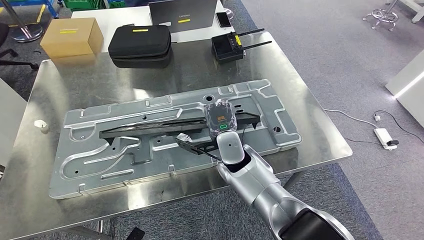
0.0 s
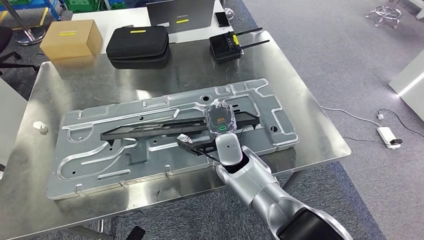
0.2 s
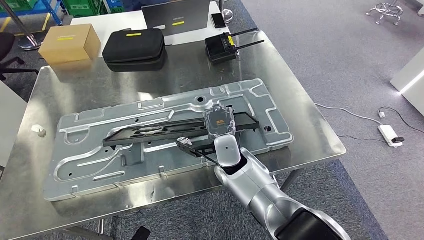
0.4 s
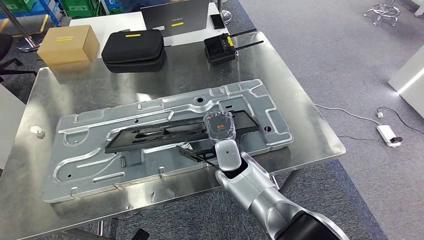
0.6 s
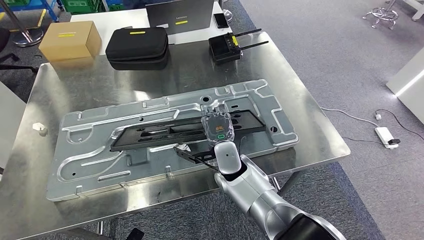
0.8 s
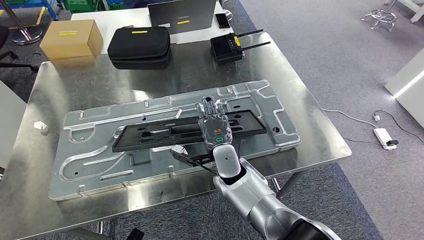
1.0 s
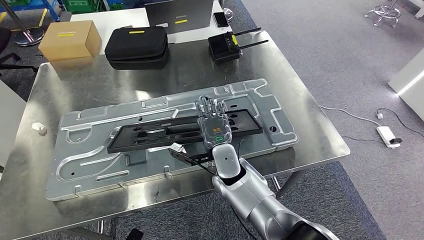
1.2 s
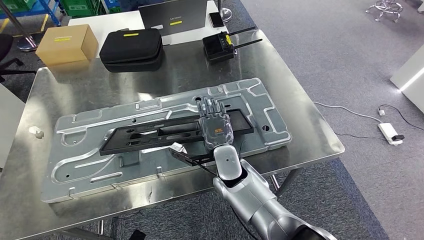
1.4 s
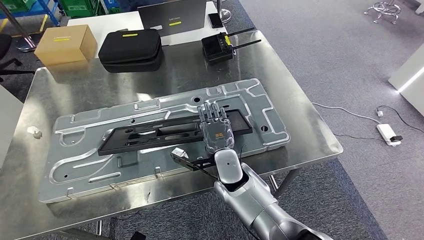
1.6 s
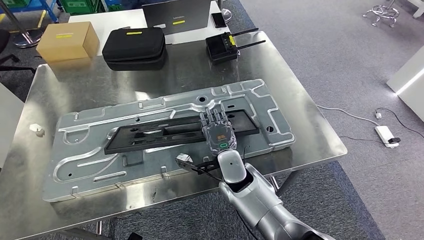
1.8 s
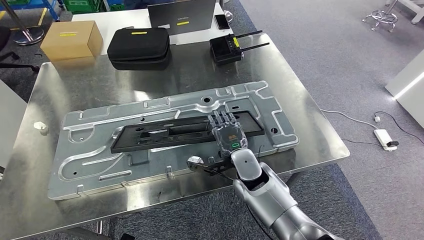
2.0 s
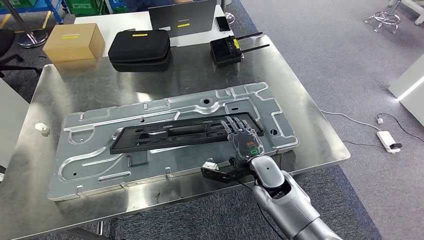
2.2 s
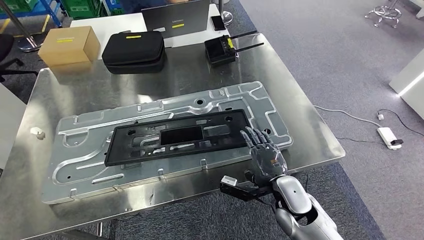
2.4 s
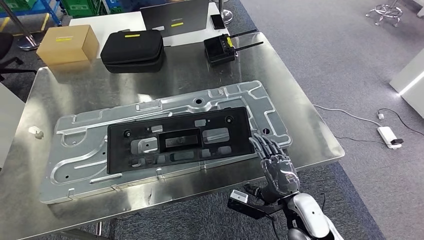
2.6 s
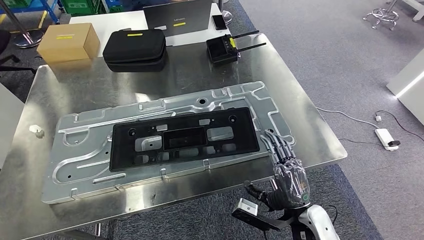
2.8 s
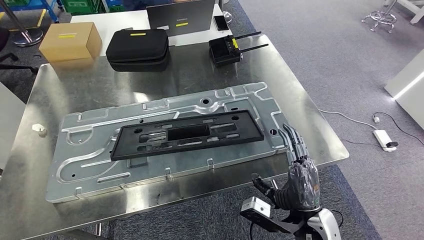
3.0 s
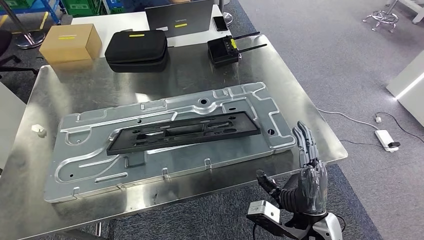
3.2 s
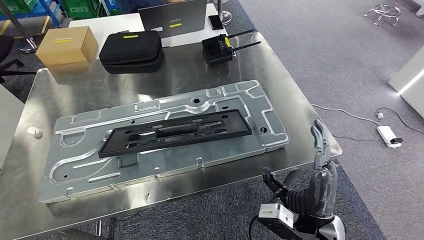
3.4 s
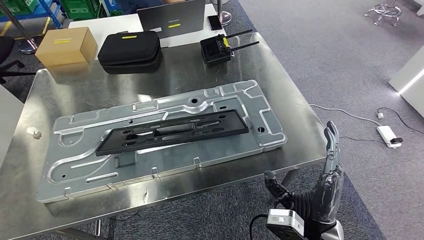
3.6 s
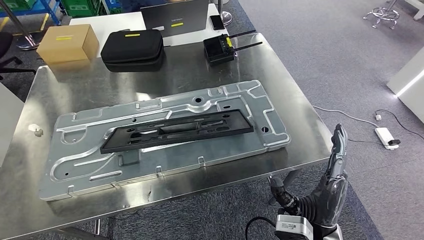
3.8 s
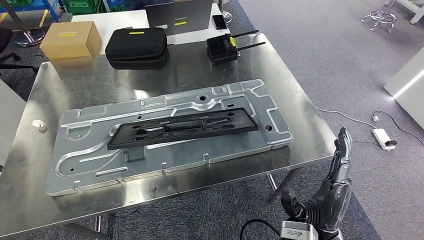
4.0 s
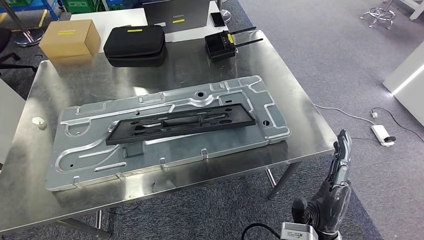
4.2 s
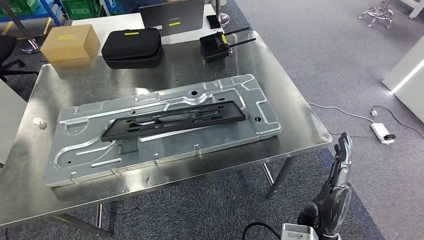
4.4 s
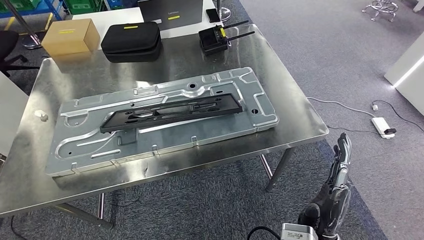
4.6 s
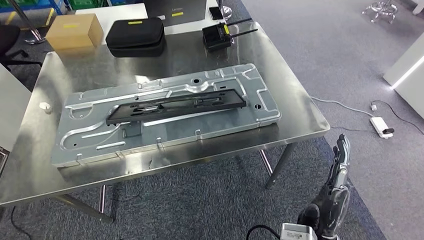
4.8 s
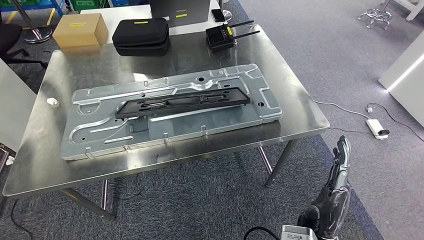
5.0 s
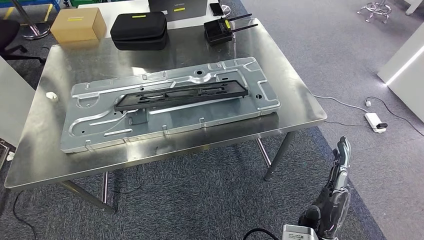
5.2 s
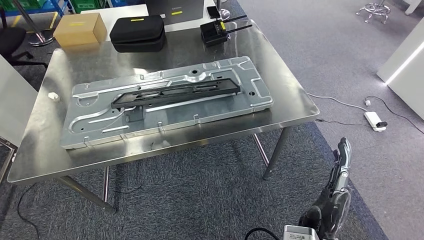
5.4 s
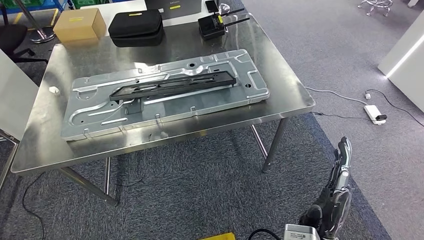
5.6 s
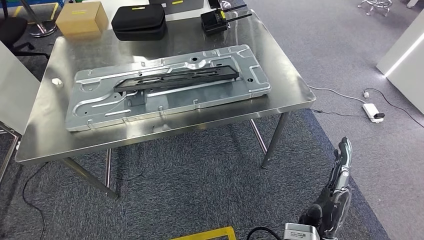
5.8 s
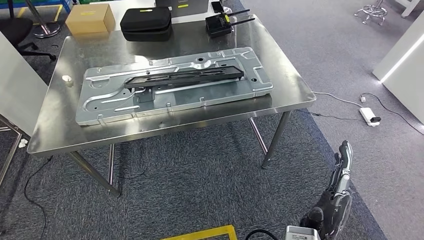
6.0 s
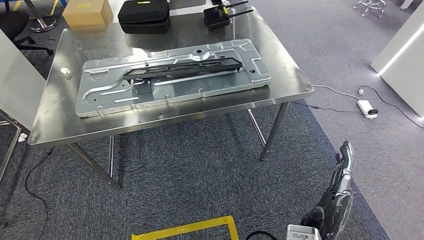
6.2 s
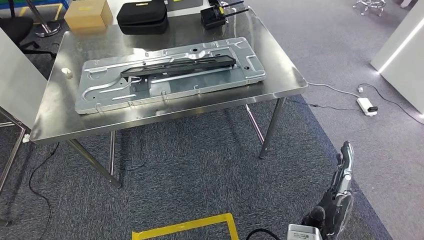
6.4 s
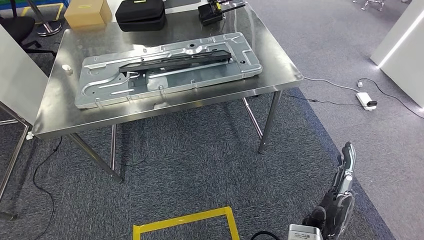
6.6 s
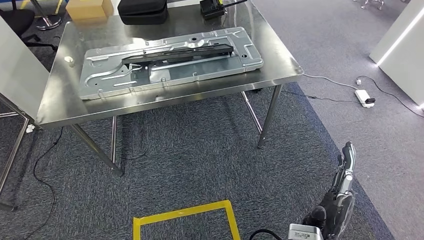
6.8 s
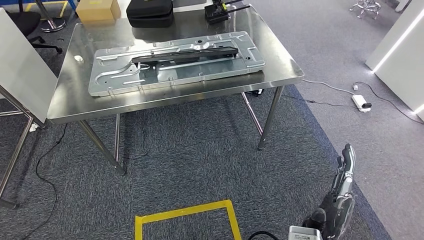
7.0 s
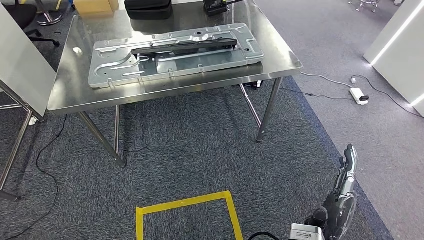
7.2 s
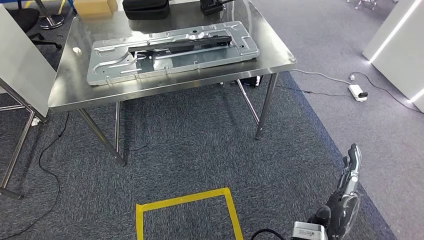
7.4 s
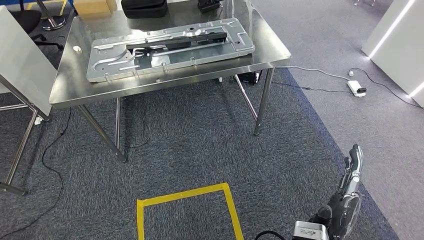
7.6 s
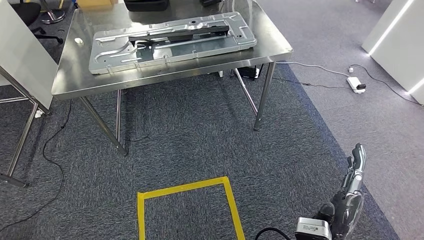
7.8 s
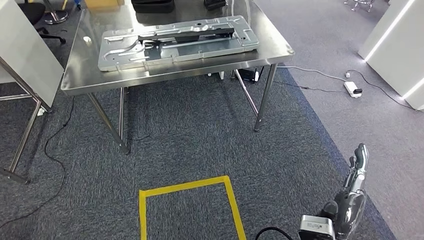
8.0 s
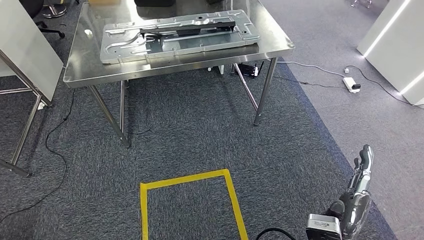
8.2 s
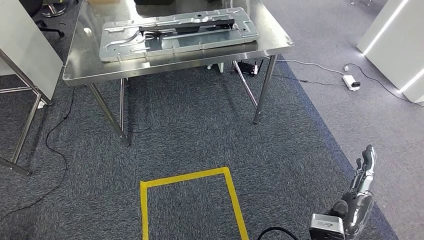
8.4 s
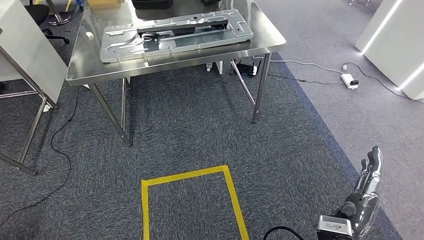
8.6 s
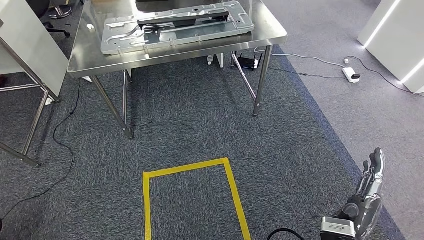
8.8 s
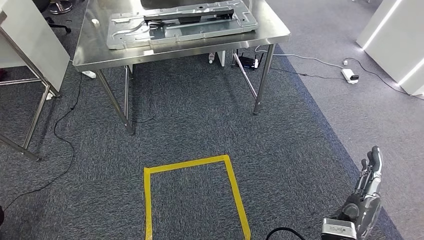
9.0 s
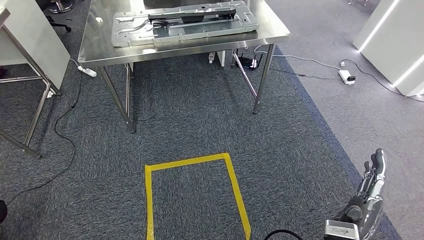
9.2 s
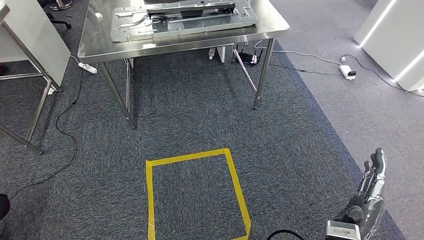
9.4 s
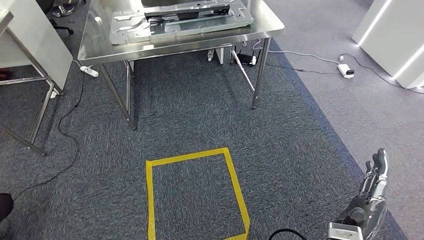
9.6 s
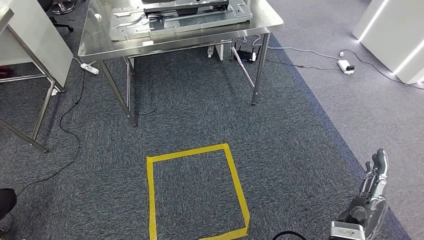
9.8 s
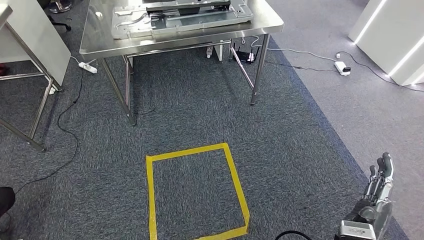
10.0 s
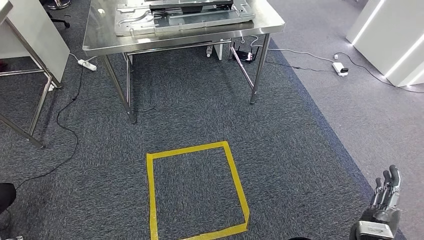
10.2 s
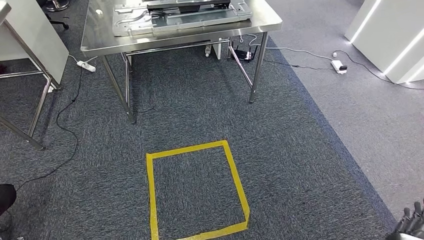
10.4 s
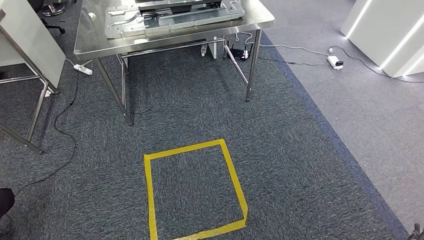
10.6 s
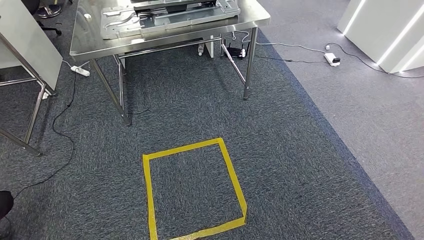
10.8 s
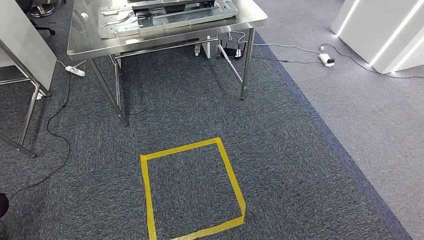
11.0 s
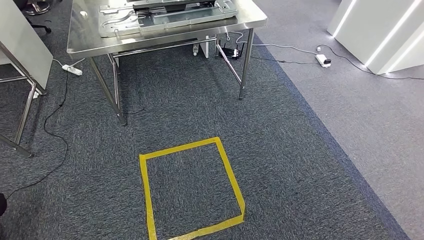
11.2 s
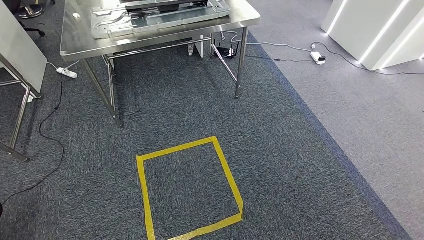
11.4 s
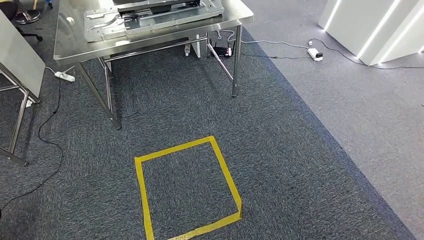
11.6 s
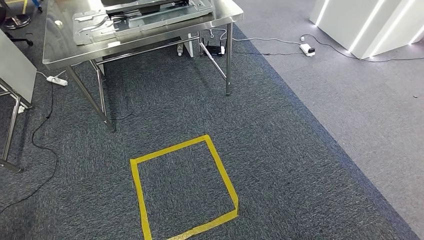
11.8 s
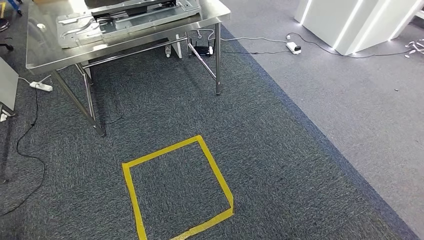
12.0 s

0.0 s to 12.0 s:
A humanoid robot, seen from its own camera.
Step, 0.0 to 3.4 s: Insert the large parts into the corresponding slots on the workbench.

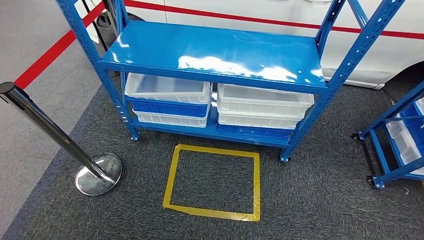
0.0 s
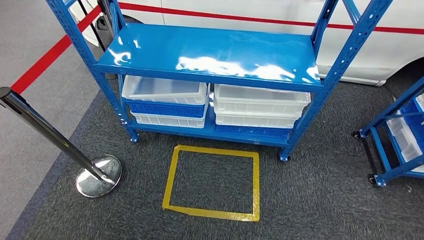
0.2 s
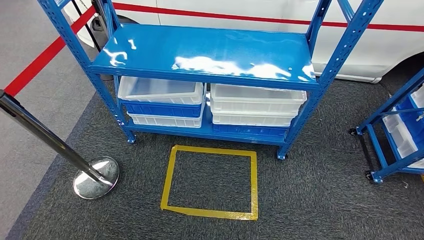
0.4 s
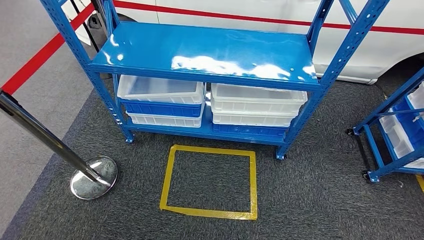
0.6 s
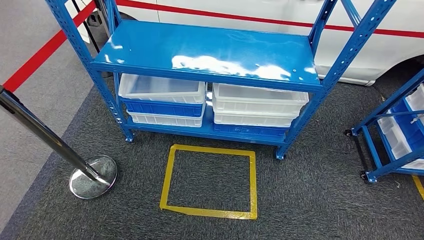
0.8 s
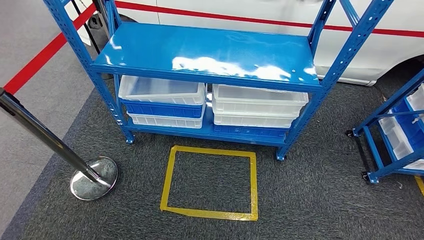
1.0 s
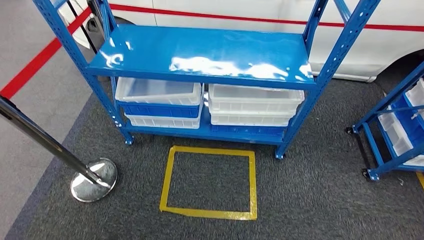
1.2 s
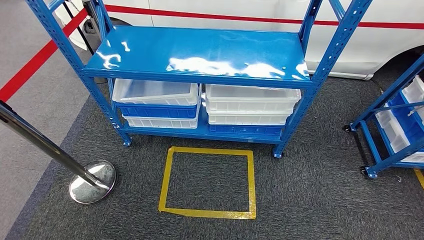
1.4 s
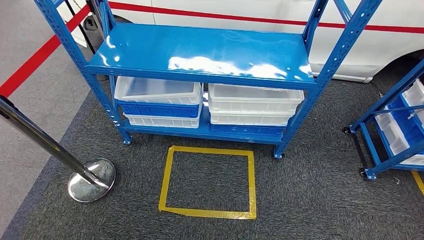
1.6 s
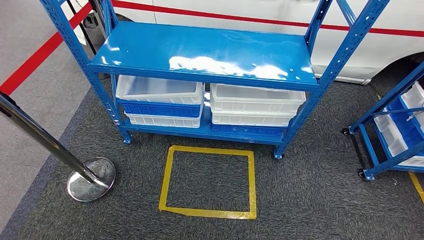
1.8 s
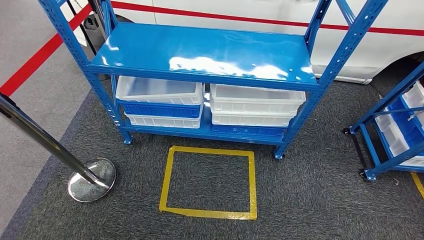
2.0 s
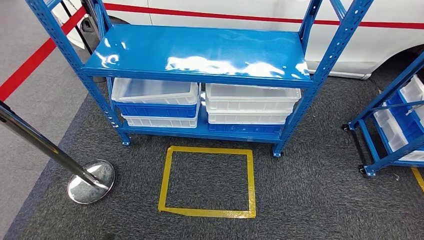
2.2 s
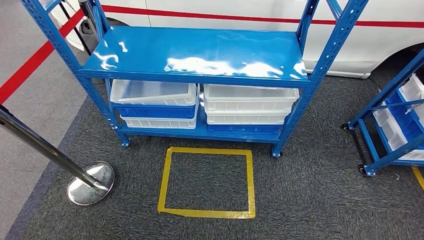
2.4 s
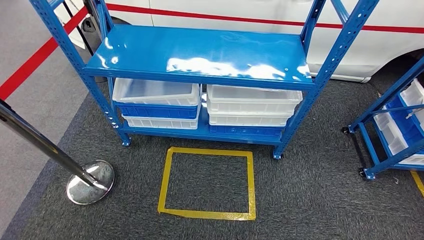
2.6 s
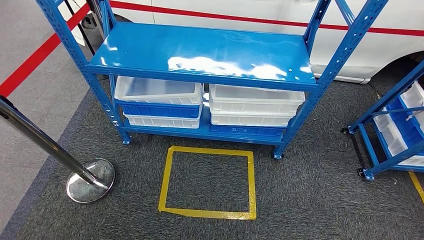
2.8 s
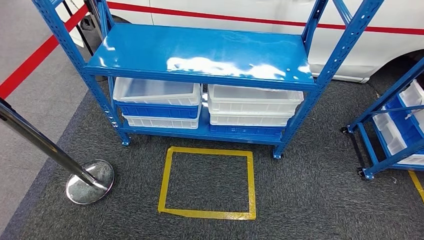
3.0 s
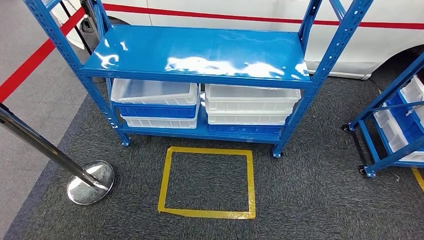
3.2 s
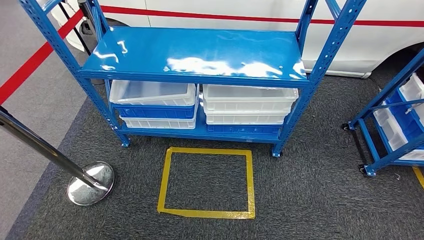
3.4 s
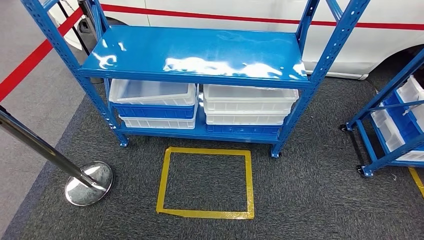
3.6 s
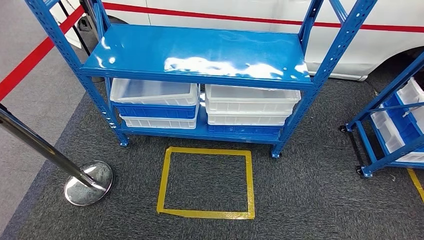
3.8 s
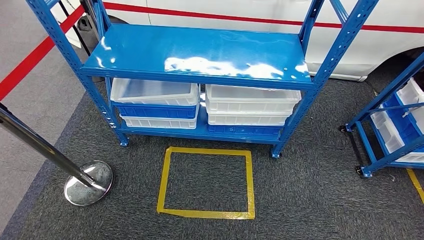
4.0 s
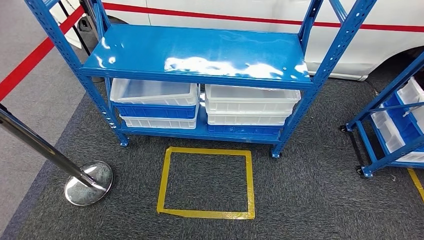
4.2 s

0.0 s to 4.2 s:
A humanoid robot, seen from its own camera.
Step, 0.0 to 4.2 s: Return to the initial position at the shelf.
2.8 to 4.2 s: The left hand goes approximately 5 cm forward.

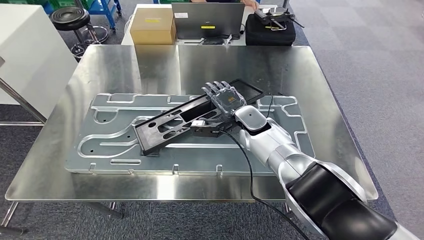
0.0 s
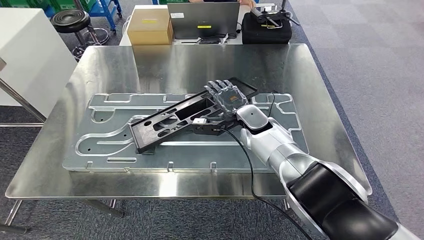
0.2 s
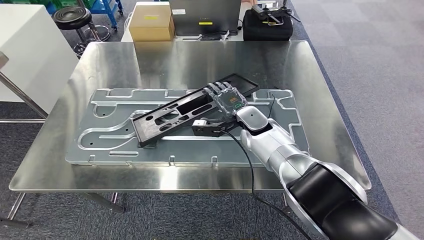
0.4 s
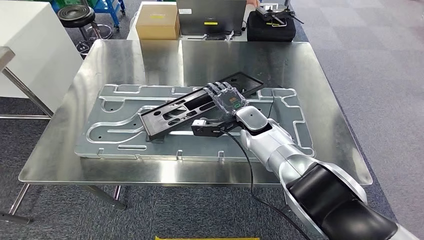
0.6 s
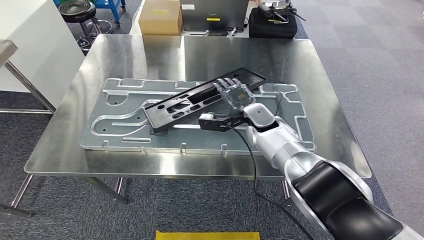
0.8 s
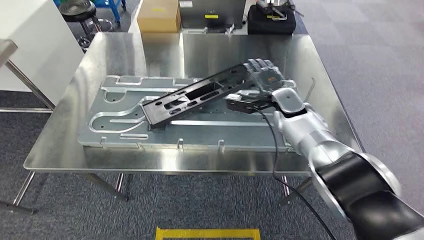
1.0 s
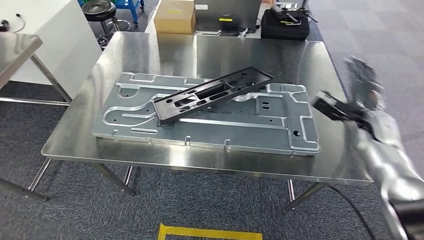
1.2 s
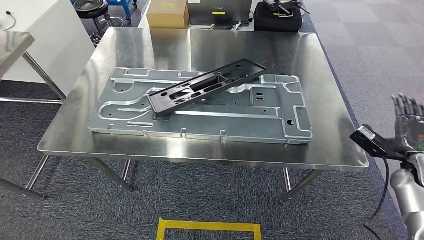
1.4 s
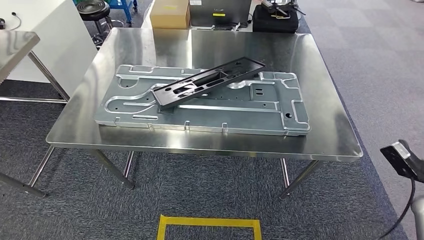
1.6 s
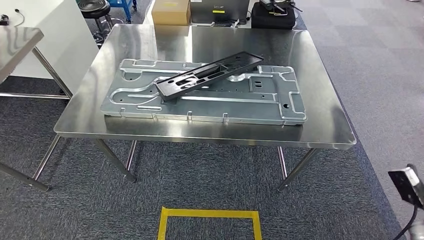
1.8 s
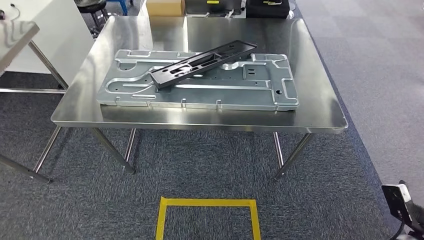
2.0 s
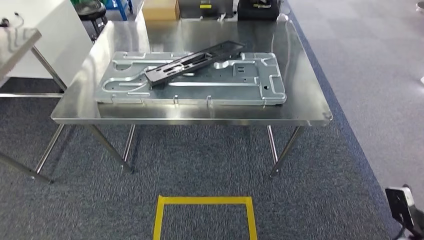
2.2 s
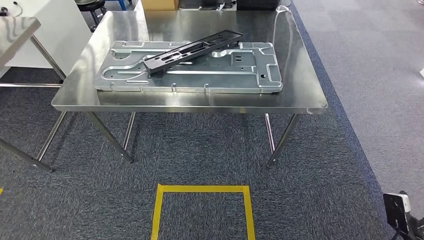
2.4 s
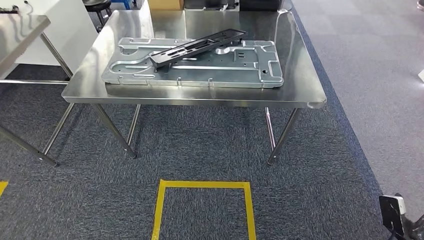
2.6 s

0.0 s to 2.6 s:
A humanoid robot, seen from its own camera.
Step, 0.0 to 1.2 s: Insert the large parts into the corresponding slots on the workbench.
